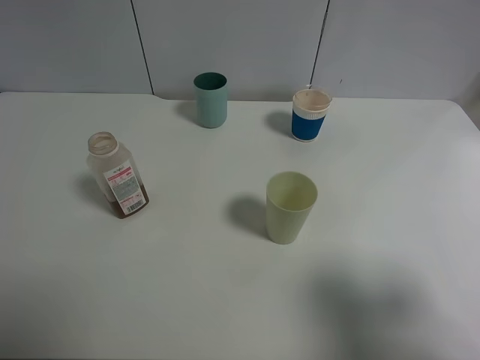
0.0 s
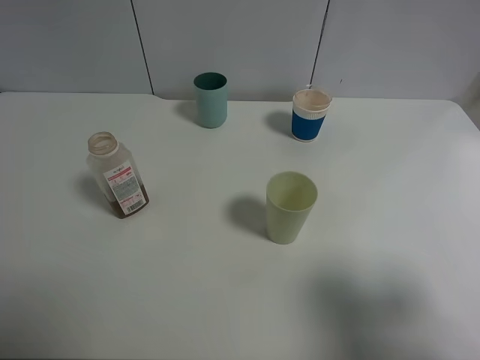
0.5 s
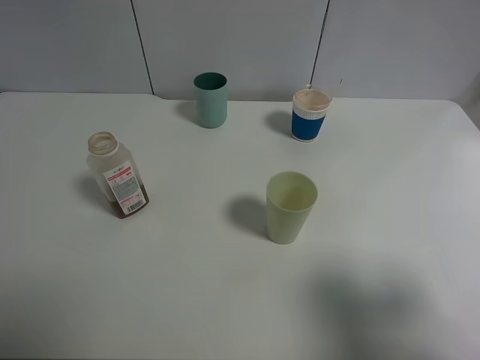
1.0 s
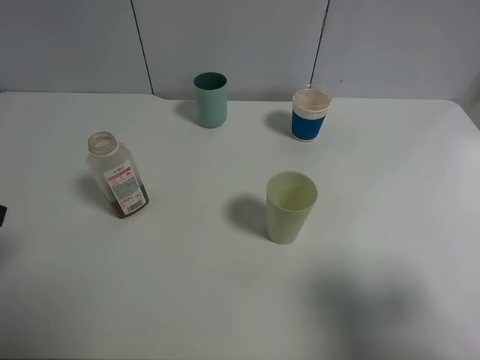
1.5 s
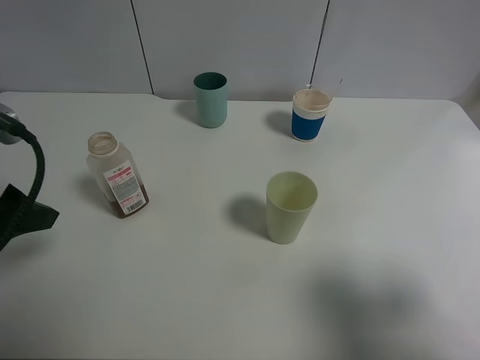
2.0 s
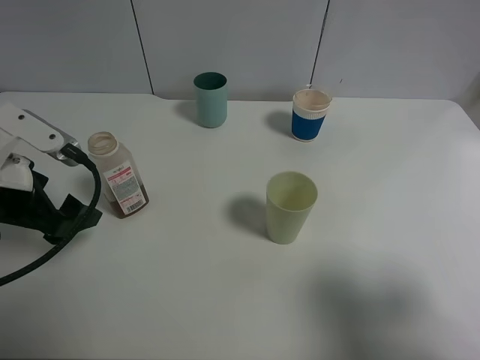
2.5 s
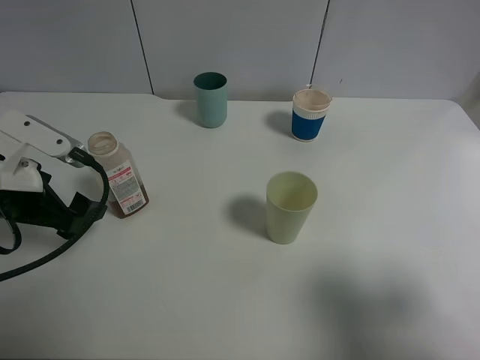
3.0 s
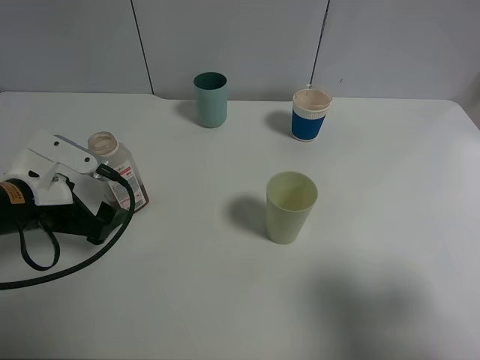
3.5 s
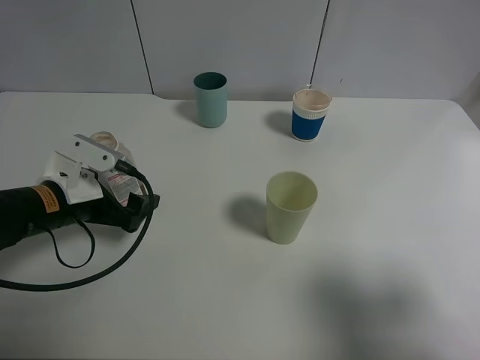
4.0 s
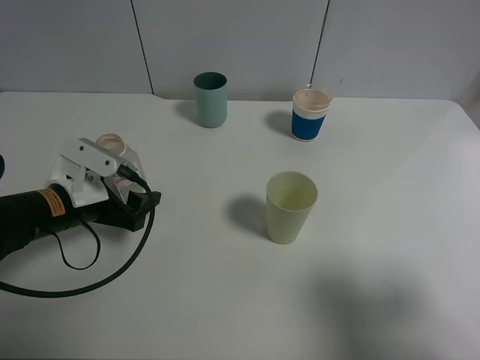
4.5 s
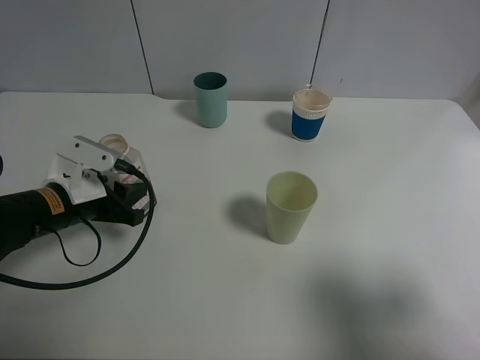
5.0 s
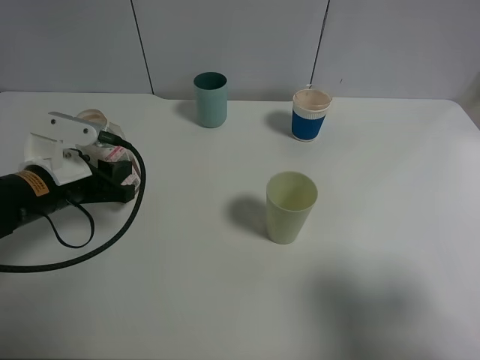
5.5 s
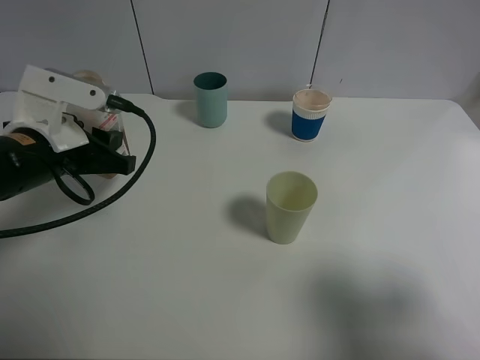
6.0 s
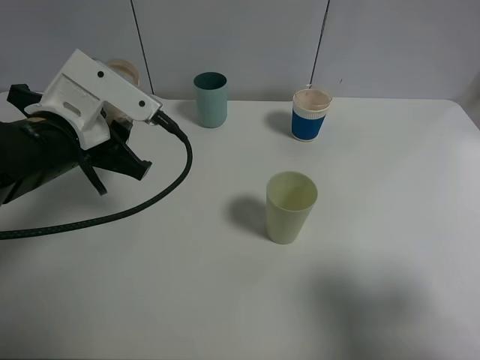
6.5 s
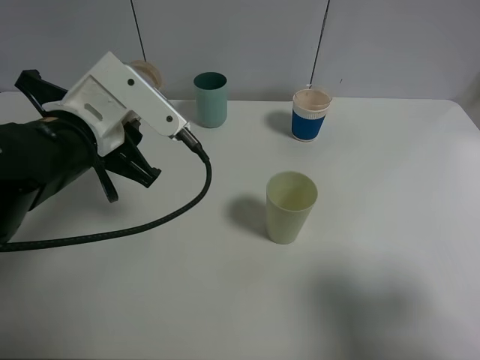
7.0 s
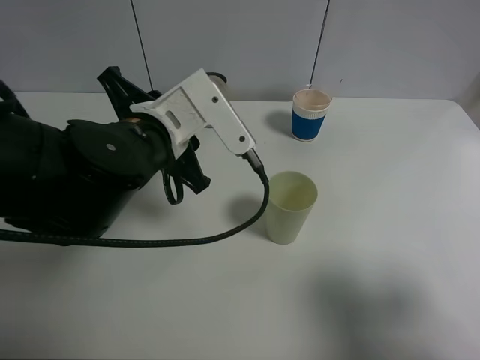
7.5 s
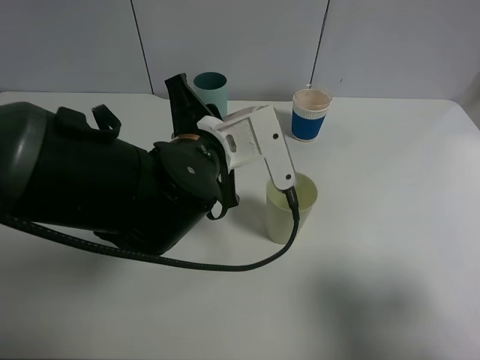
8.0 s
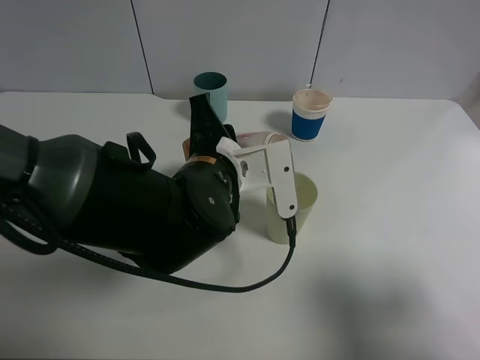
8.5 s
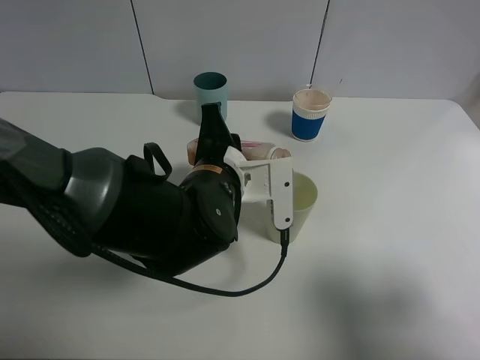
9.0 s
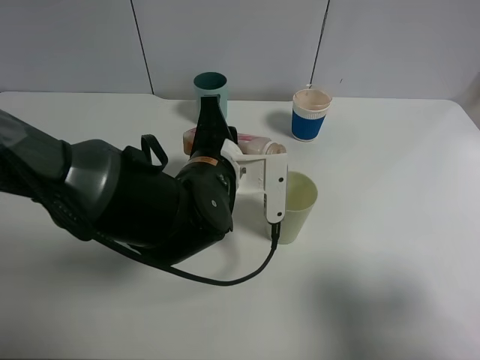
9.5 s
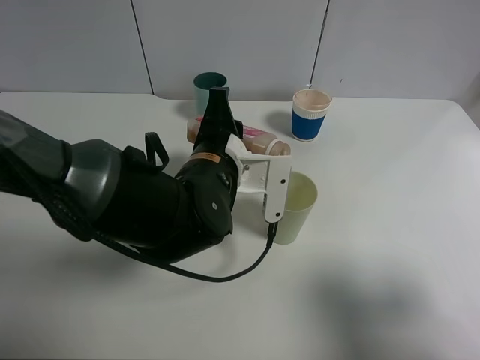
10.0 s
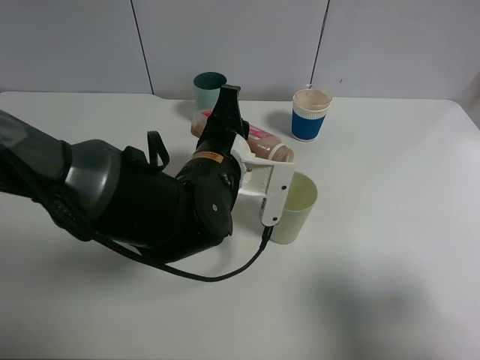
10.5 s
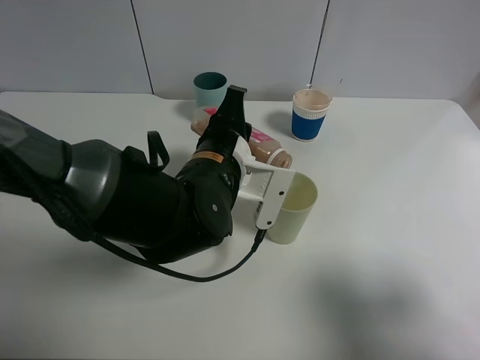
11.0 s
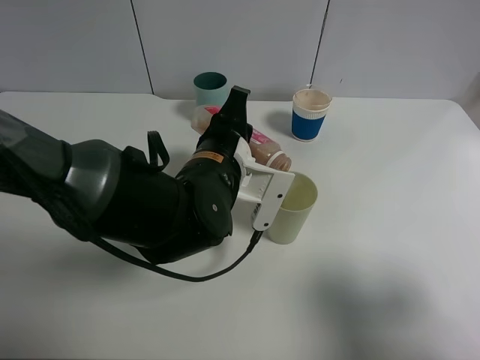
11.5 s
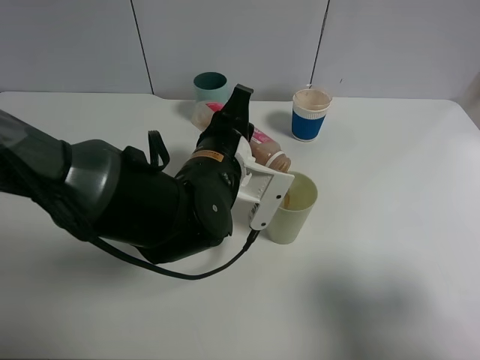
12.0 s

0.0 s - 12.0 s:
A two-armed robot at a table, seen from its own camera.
Task of the whole recording: use a clamp to hold the bottle of the drink, pour the beverage into a random cup, then clamp the cup containing the drink and pour the drink into another random cup.
Step, 0.0 s - 5.0 s: Pick up the drink bottle with left gripper.
0.0 s - 2.0 s: The left gripper shifts roughly 15 cm forward.
2.0 s - 4.0 s: The left gripper is displaced downward, forward and to the right by roughly 15 cm.
4.0 s - 6.0 s: The left gripper travels upward by approximately 5 cm, and closes.
6.0 s - 8.0 s: The left gripper moves to the right, approximately 15 cm.
10.0 s - 12.0 s: The grippers make only small movements.

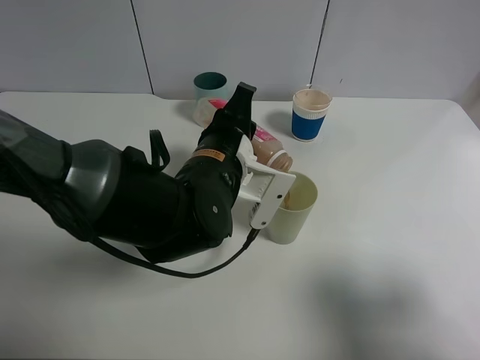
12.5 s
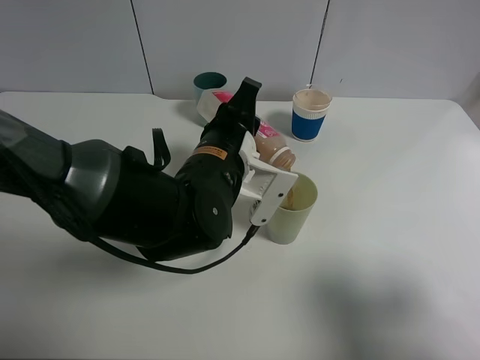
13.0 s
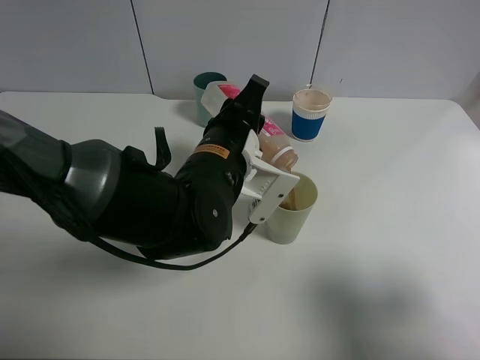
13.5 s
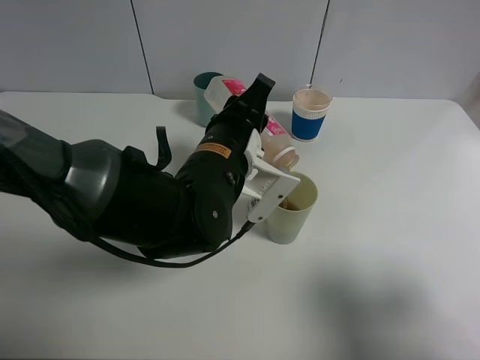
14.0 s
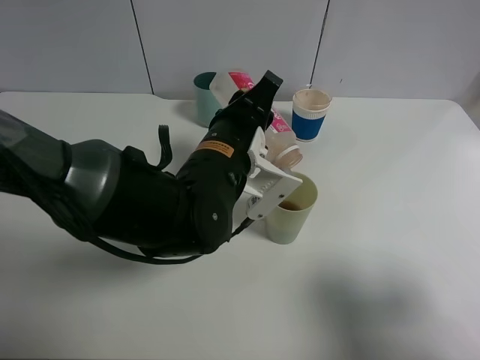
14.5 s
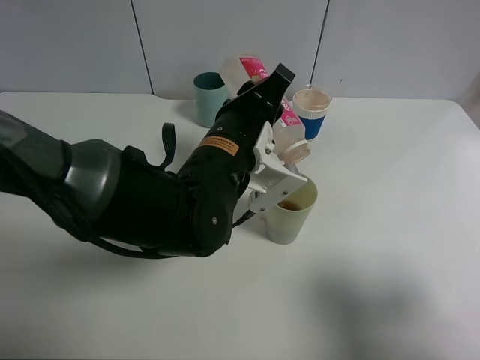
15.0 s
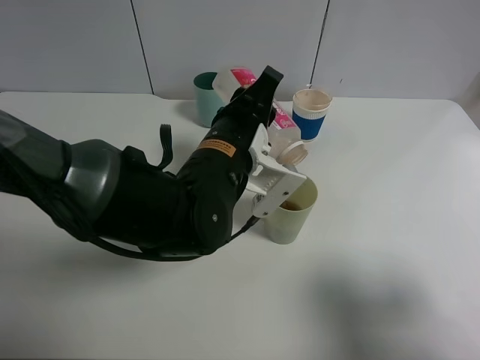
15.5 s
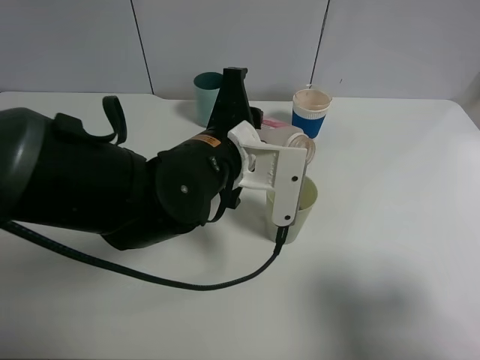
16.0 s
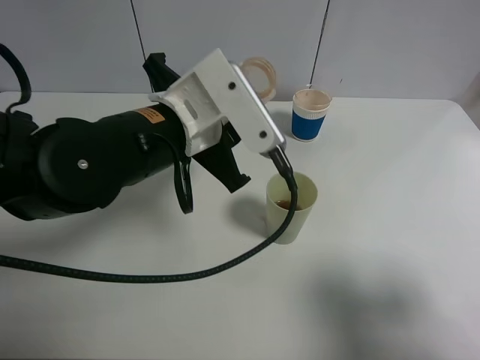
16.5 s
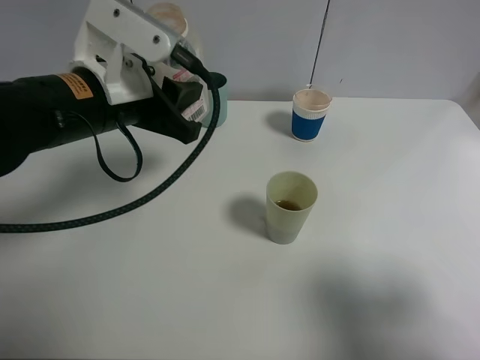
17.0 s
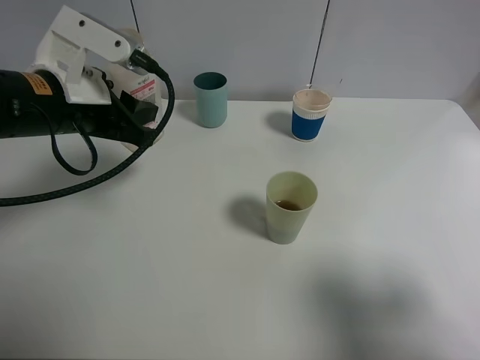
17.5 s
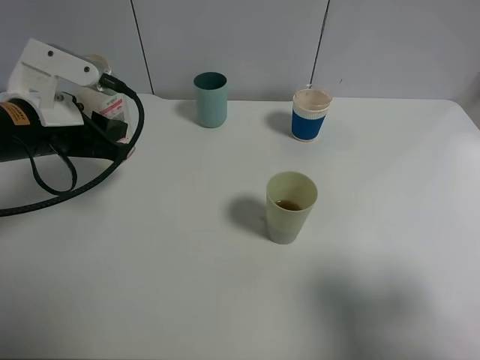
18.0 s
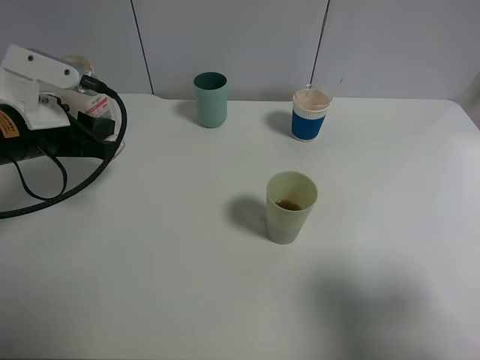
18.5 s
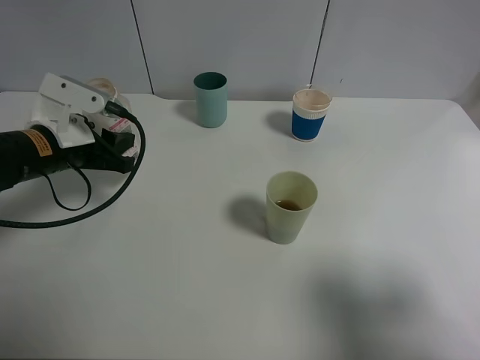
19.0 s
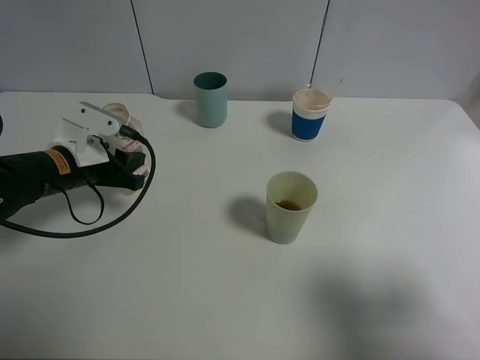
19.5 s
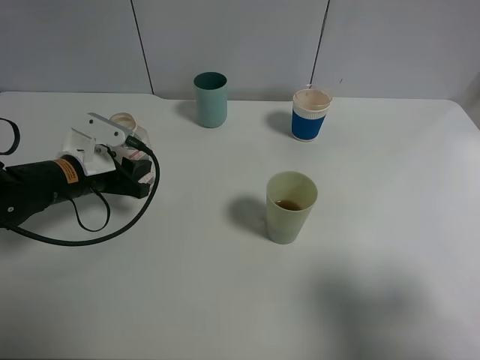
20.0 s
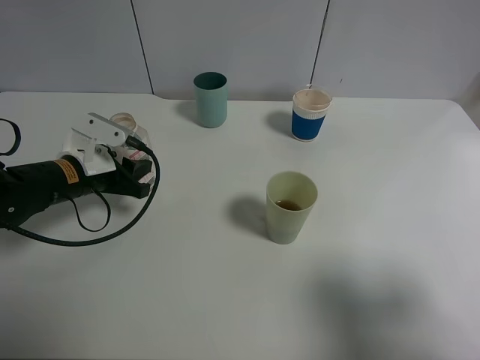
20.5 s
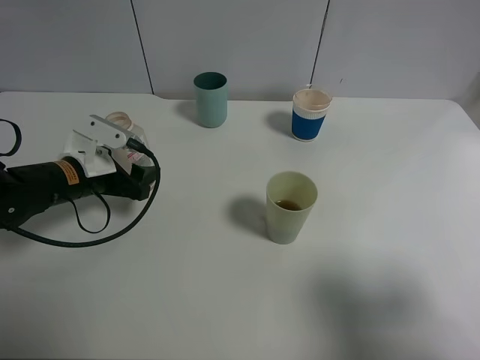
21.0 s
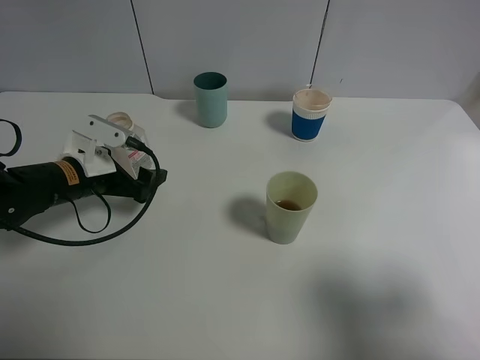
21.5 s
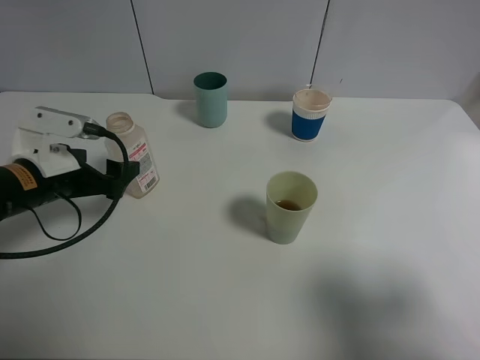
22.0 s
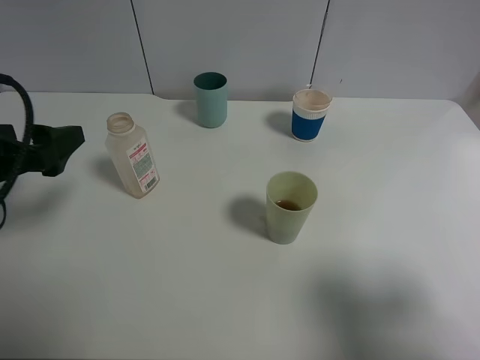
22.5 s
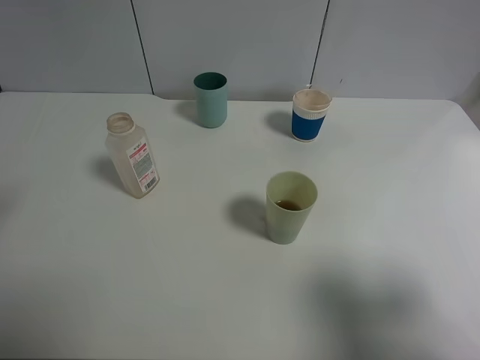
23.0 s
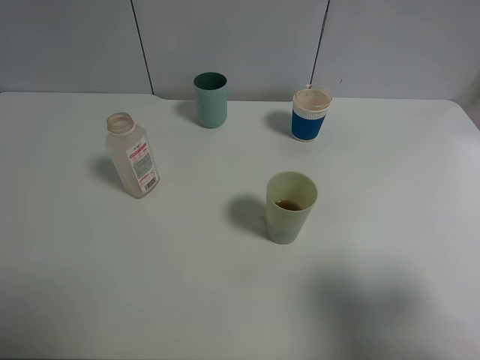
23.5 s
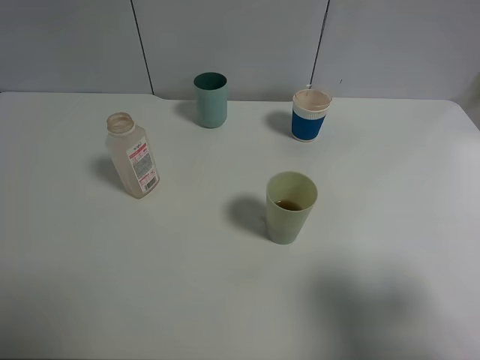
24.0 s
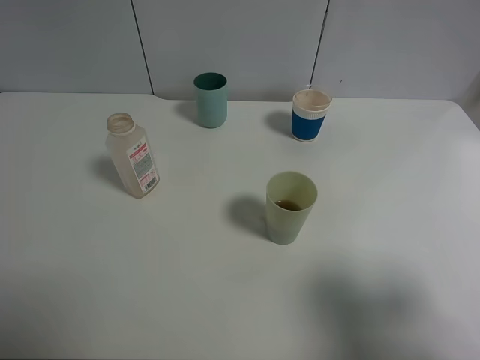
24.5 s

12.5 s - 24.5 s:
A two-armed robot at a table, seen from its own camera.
Task of the whole recording: use a clamp to hold the bottle of the drink, pour the beverage into a random cup, then clamp the cup containing the drink and pour the drink into another random cup.
Step, 12.5 s - 15.5 s: Pour the drink into the green plastic cup with left gripper.
Step, 16.0 s - 21.0 s: Place the drink bottle on the table with left gripper.
12.5 s - 14.5 s: The grippers make only small movements.
14.5 s - 16.5 s: The left gripper moves to the left, about 5 cm.
16.5 s - 18.5 s: The left gripper is displaced to the left by about 15 cm.
18.5 s - 20.5 s: The left gripper goes roughly 10 cm downward.
20.5 s - 22.5 s: The left gripper moves upward and backward, roughly 15 cm, and opens.
22.5 s - 24.5 s: The left gripper is displaced backward and upward by approximately 25 cm.

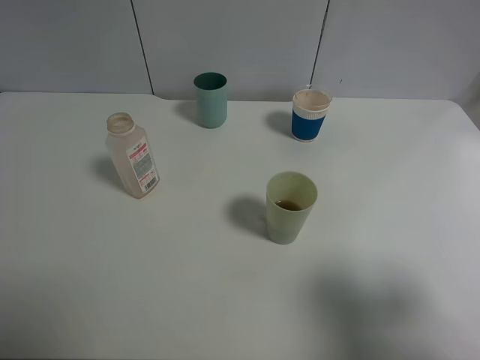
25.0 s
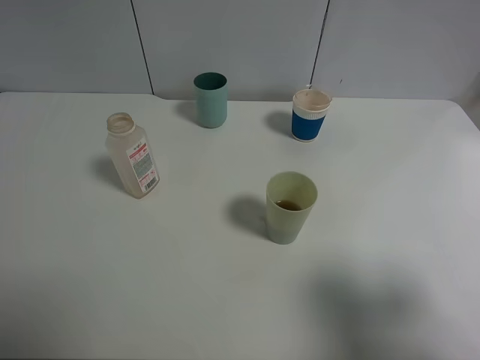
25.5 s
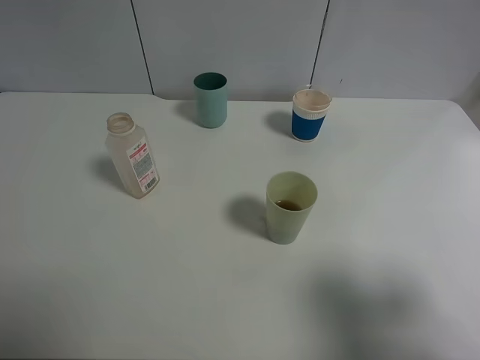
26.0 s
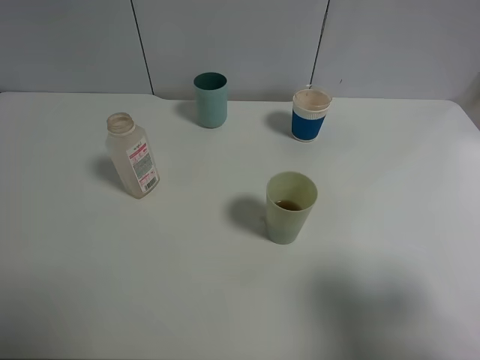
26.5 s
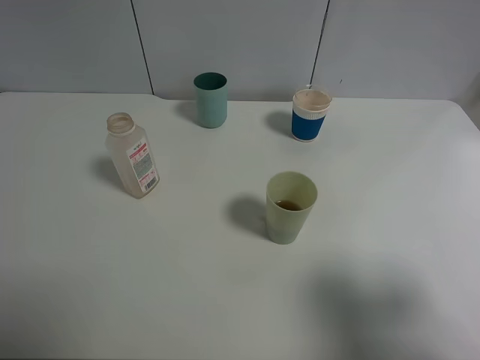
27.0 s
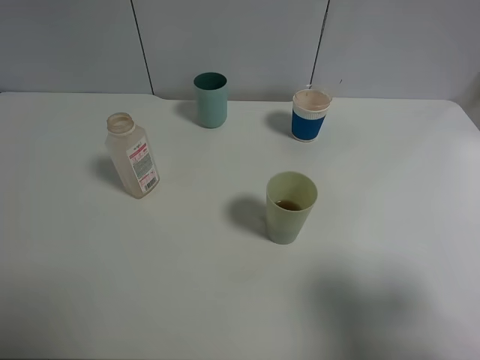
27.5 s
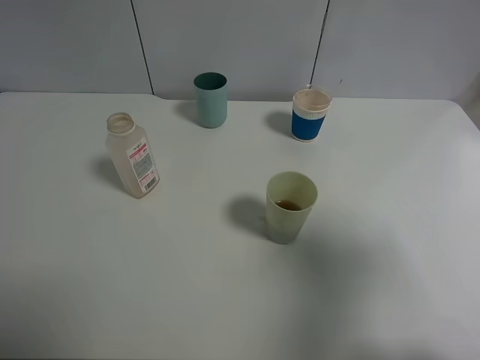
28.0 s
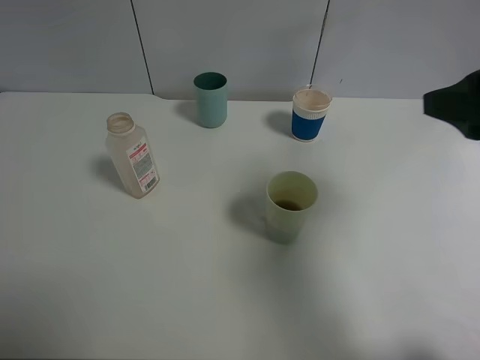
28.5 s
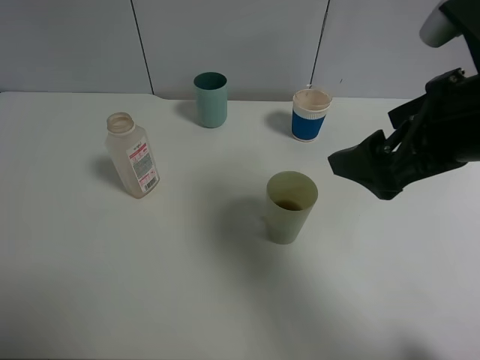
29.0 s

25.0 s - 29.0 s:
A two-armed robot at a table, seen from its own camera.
Task of the whole recording: use a clamp to hold the bottle of the drink, pour the beverage into a random cup, then clamp the cup containing the drink and pour the drink into another random cup.
27.0 s - 29.0 s: The right gripper heads forward and to the left, covering about 20 cm.
